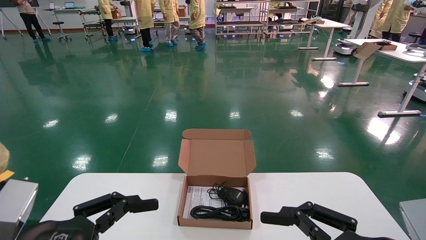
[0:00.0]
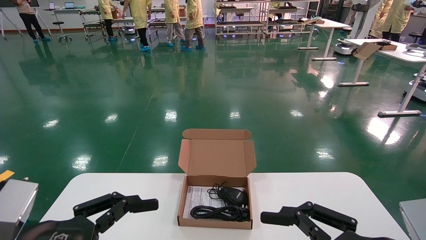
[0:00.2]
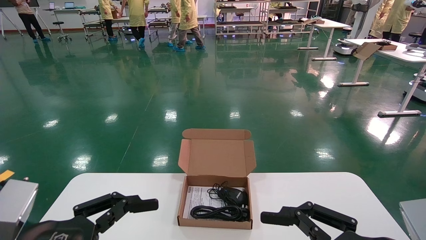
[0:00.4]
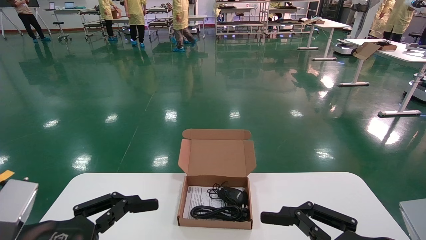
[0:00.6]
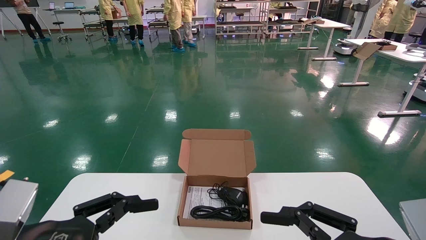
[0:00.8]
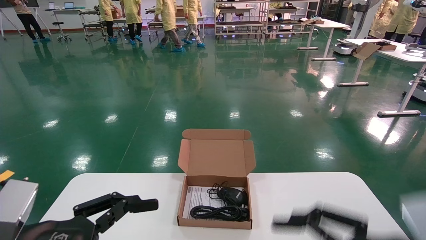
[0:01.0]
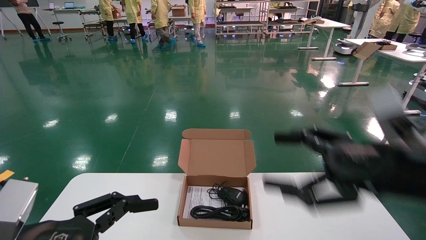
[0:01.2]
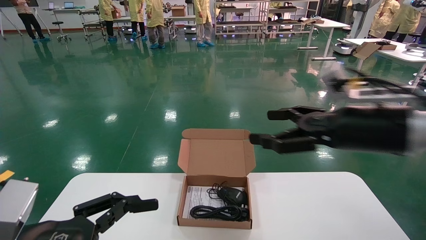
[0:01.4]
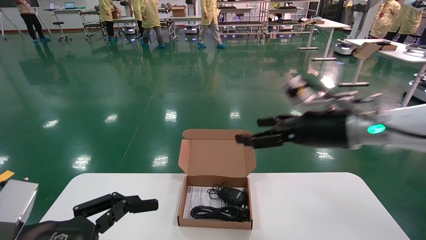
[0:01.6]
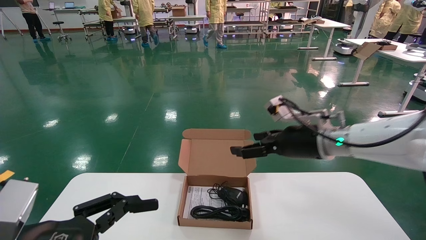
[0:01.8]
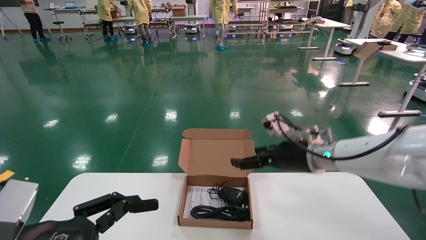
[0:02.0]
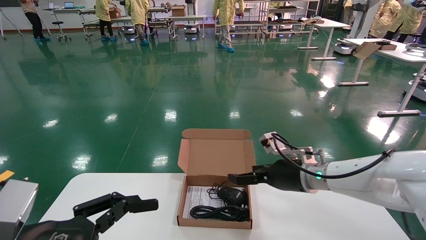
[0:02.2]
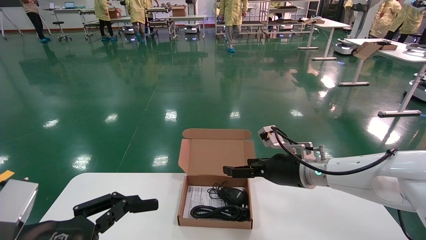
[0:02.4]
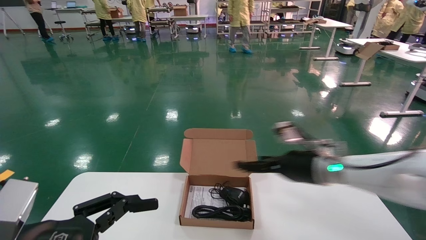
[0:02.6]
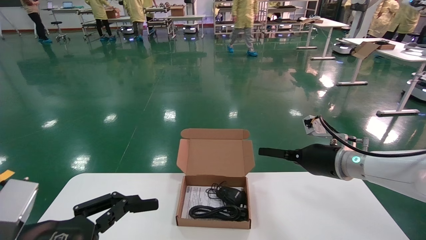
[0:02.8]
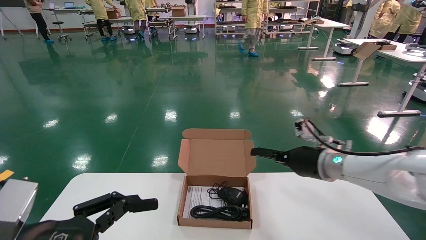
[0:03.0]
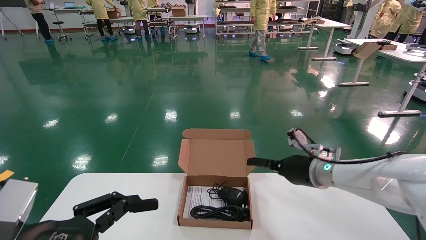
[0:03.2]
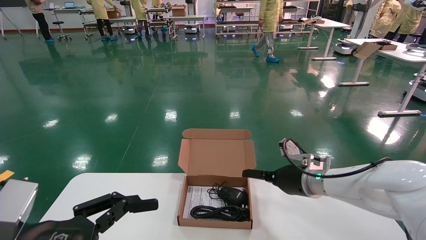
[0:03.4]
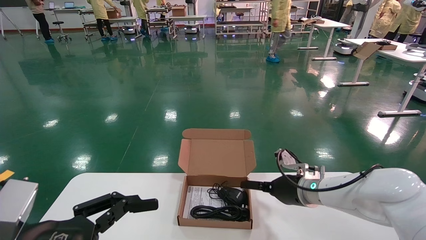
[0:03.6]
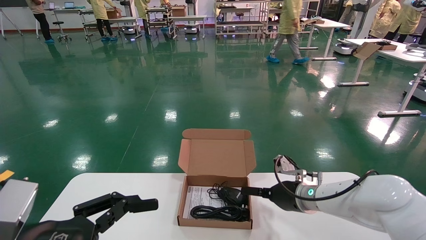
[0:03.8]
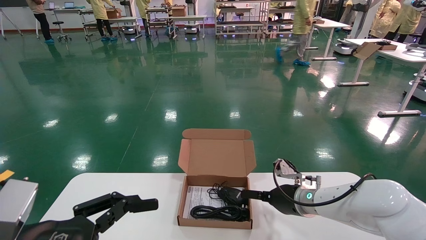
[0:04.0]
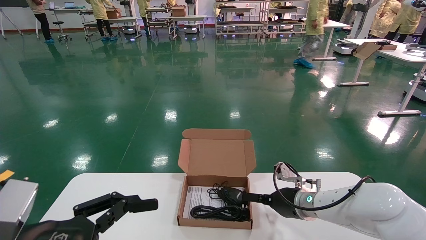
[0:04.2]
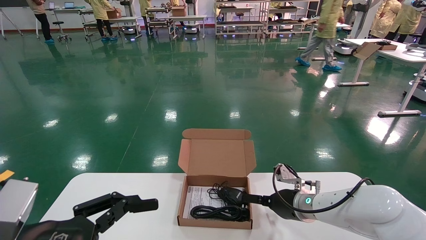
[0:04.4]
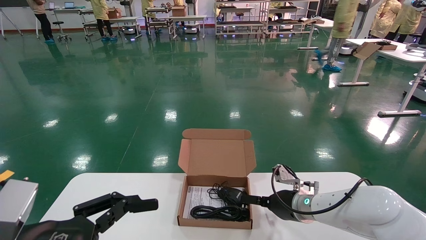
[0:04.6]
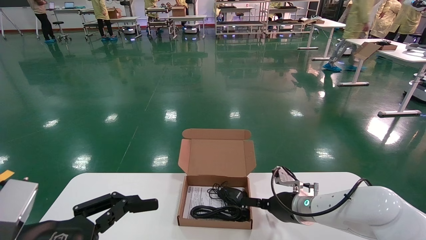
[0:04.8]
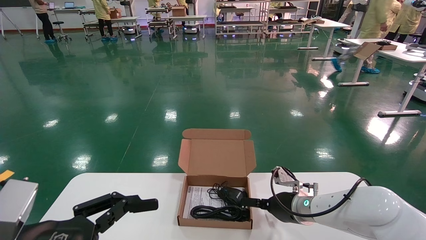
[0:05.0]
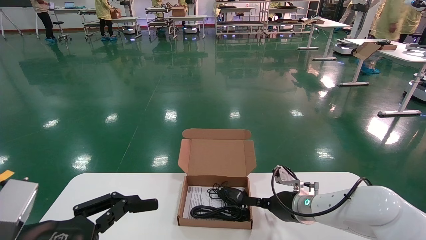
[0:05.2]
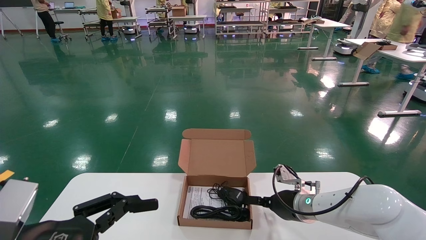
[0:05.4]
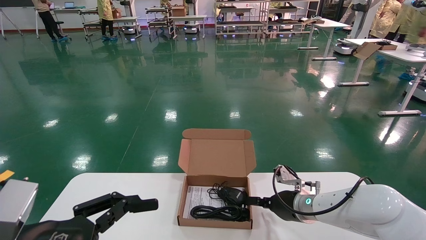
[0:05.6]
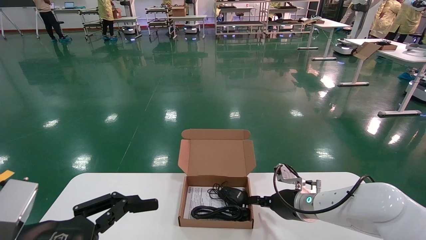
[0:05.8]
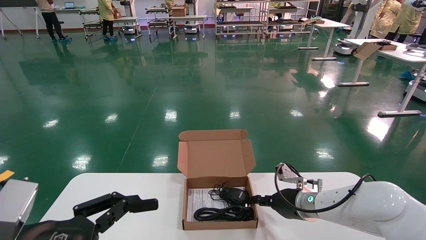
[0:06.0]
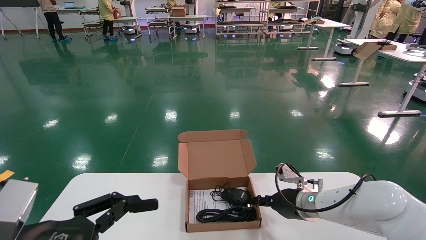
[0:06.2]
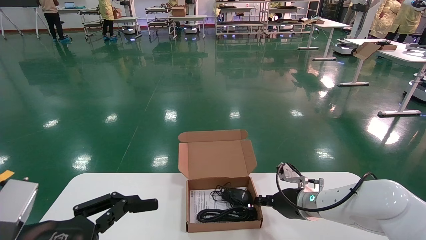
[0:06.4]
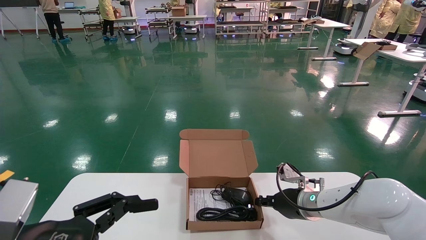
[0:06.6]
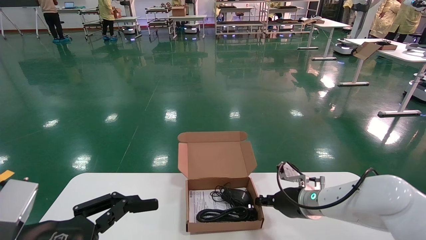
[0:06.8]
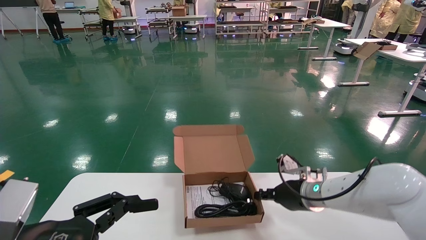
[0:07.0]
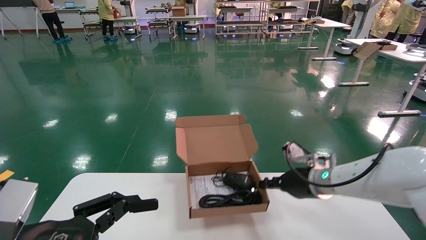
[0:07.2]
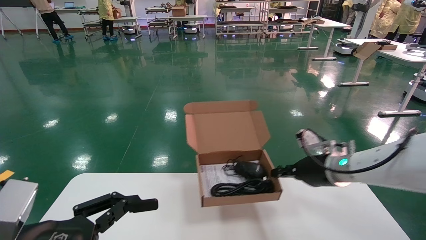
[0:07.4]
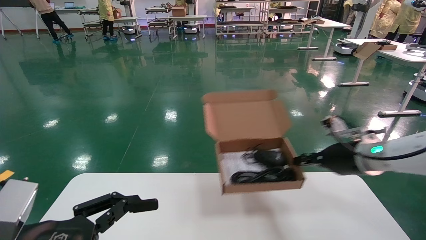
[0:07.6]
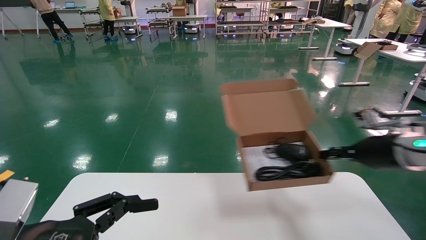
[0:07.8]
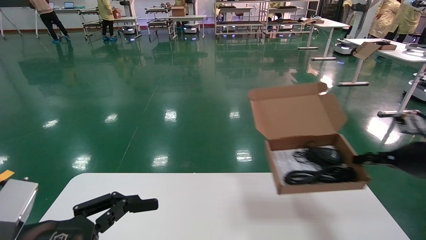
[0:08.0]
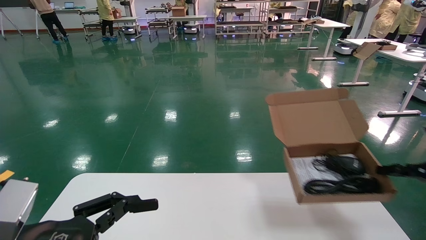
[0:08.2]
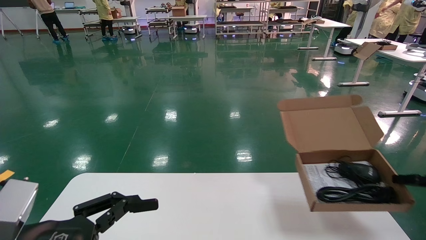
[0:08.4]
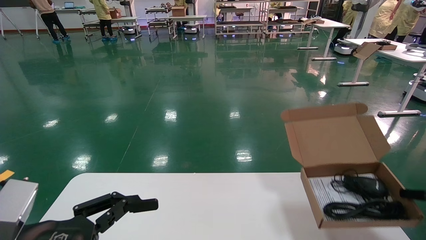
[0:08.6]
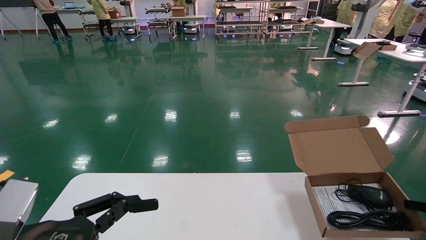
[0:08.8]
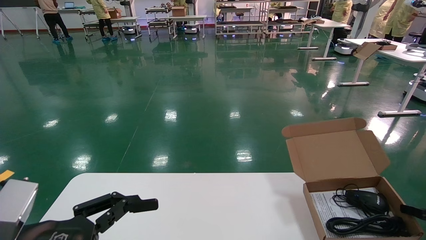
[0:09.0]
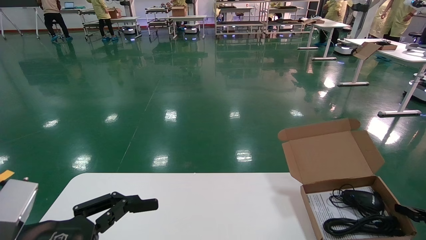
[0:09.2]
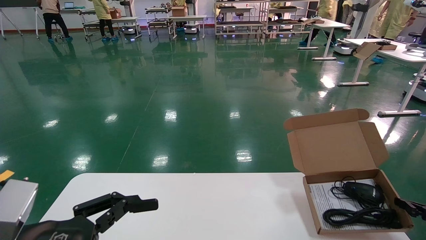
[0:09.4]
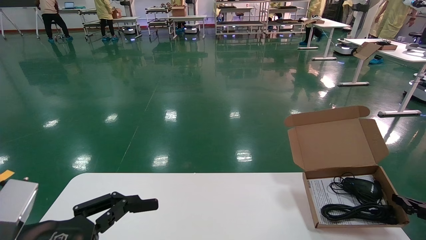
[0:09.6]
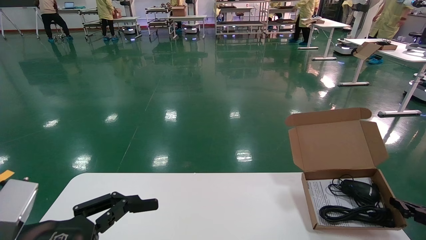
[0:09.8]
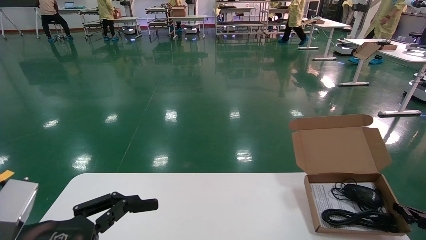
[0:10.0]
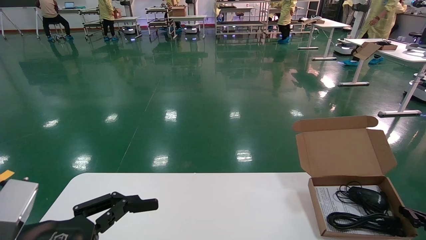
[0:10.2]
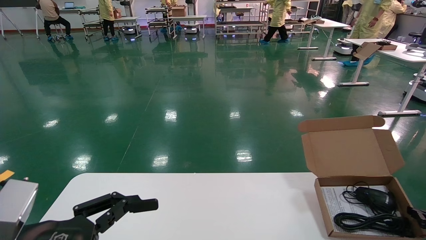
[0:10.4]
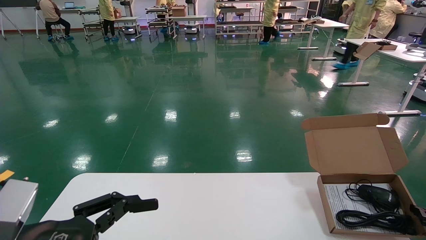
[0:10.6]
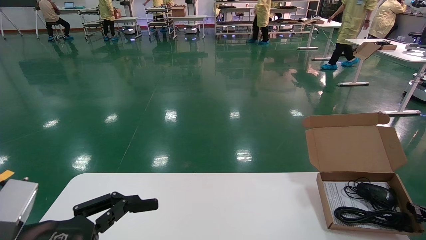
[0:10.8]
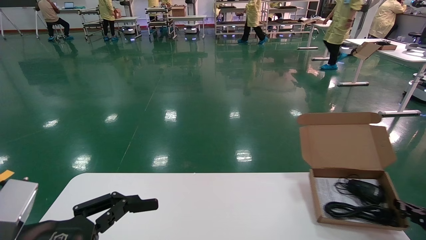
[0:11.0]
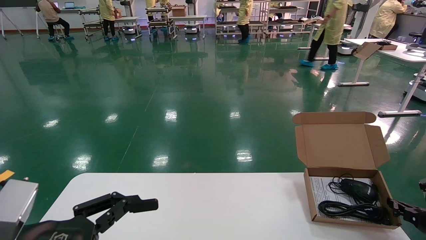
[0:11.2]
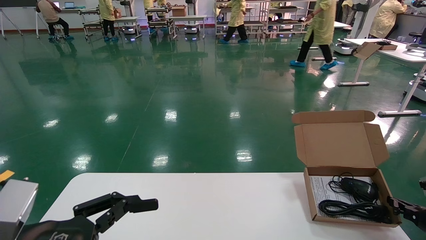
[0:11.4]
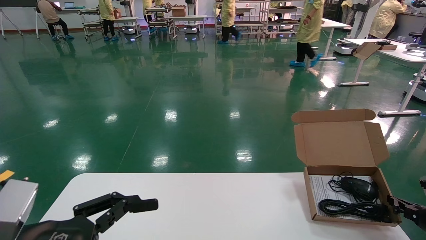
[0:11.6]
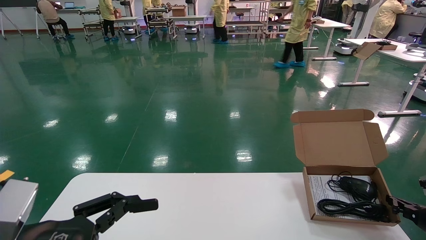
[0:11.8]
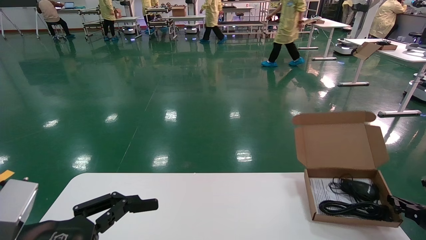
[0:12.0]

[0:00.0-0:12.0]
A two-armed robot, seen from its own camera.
Task of the whole recording: move the position of the storage box with accessories on the table.
Step, 0:01.4 to 0:06.6: Grab and pick up the open mouse box from the accessory packaging area.
0:00.0 to 0:01.6: The right gripper travels forward and upward by roughly 25 cm.
0:01.6 to 0:03.0: The right gripper travels downward and forward by some 10 cm.
0:03.0 to 0:04.4: The right gripper heads downward, covering approximately 10 cm.
0:04.4 to 0:06.0: The right gripper closes up.
0:06.0 to 0:07.6: The right gripper heads upward and to the right, covering roughly 15 cm.
0:07.6 to 0:09.0: The right gripper shifts roughly 25 cm to the right and downward.
0:09.0 to 0:10.4: The right gripper is displaced downward by approximately 5 cm.
0:10.4 to 0:12.0: The grippers make only small movements.

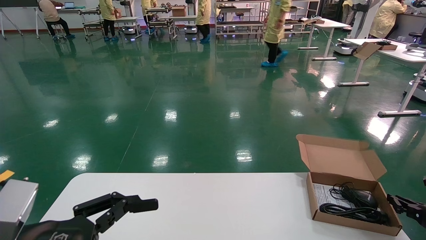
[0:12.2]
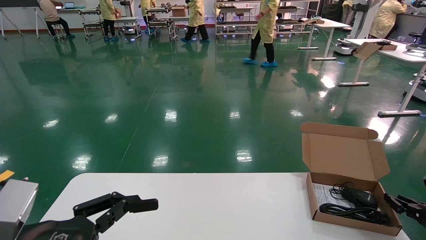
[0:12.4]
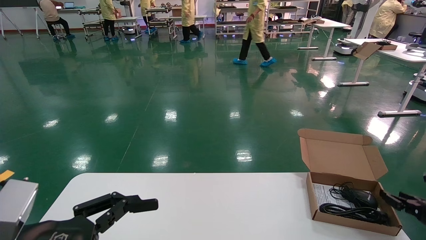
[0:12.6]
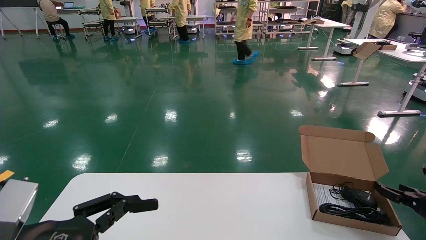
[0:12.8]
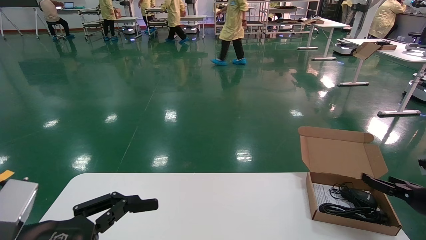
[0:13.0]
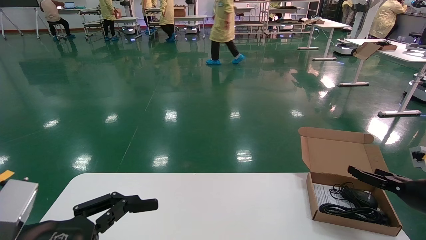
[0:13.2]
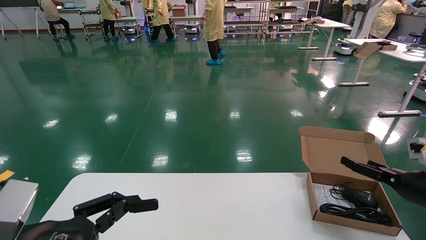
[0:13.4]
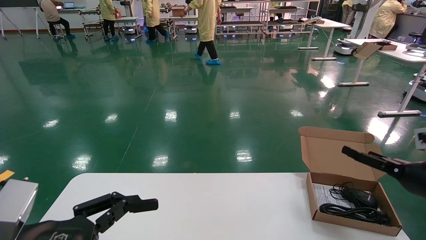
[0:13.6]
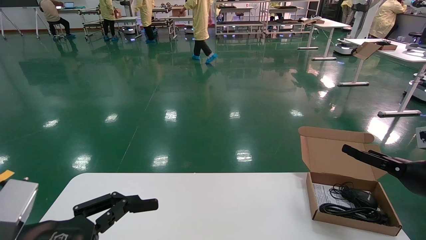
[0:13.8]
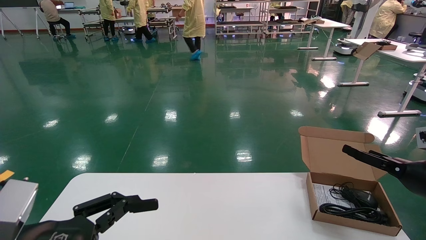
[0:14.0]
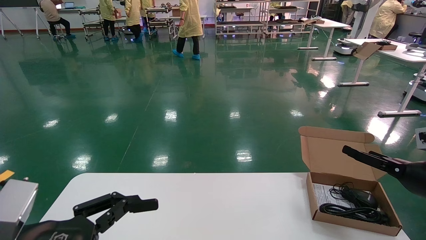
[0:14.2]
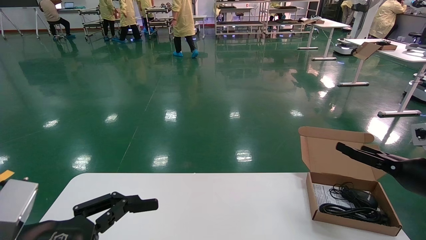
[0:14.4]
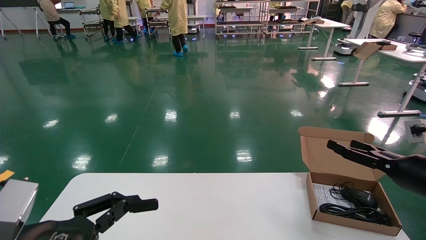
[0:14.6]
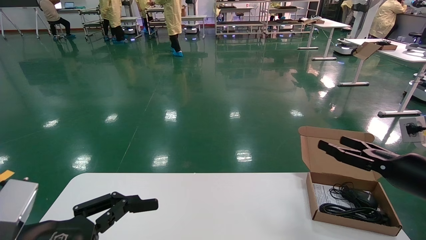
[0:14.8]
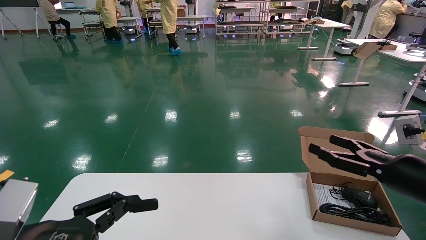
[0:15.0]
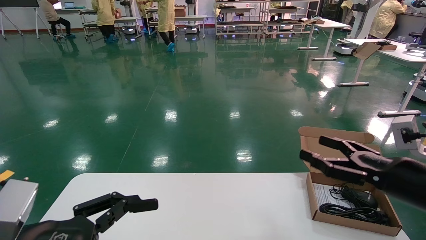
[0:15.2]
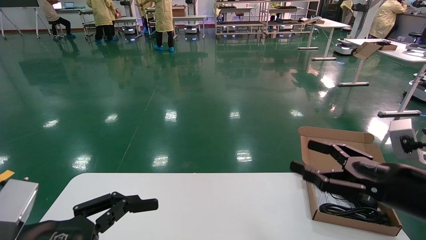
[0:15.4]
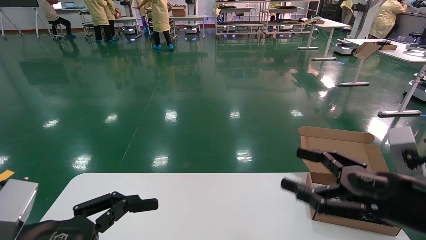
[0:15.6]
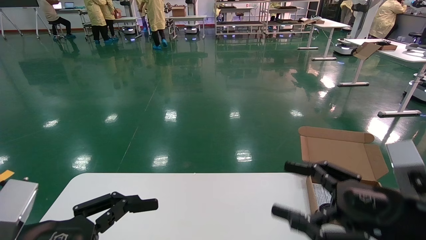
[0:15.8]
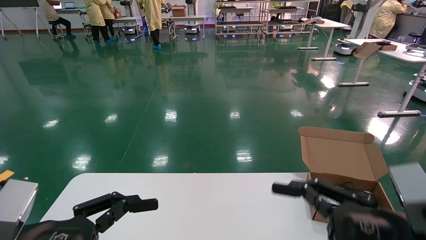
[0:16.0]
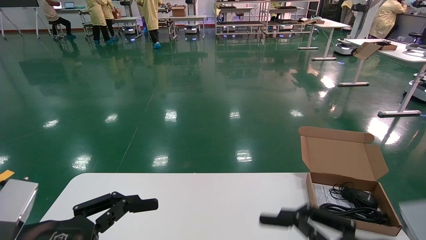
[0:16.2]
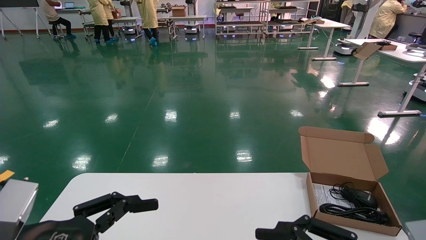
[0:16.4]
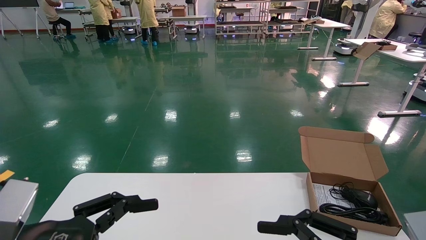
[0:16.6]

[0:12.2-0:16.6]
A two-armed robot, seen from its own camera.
Task of the whole recording: move the position of the storage box with accessories on the table.
0:12.2 to 0:13.6: The right gripper shifts some 10 cm upward and to the left, and opens its fingers.
0:13.6 to 0:15.2: The right gripper heads to the left and backward, covering roughly 10 cm.
0:15.2 to 0:16.6: The right gripper shifts approximately 15 cm backward and to the left.
